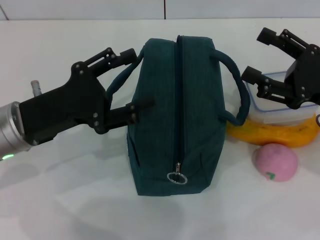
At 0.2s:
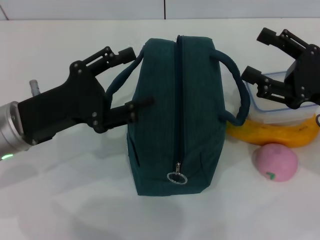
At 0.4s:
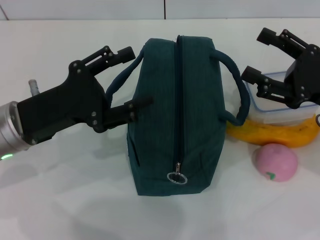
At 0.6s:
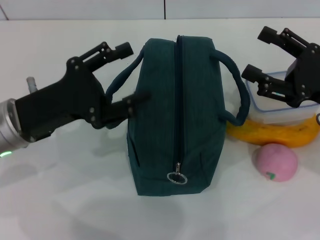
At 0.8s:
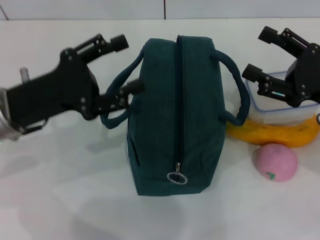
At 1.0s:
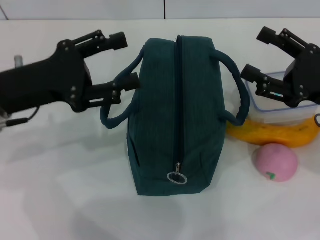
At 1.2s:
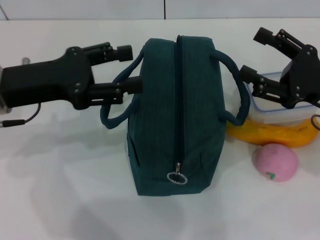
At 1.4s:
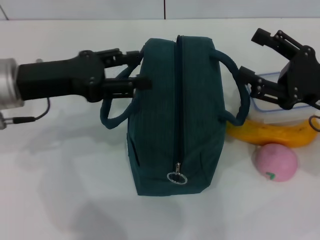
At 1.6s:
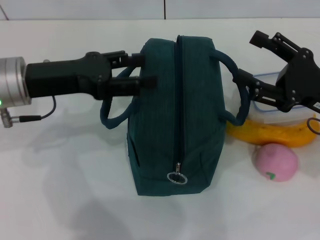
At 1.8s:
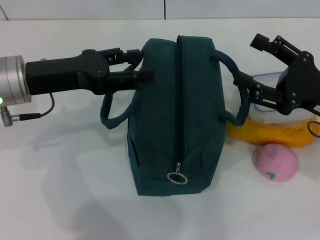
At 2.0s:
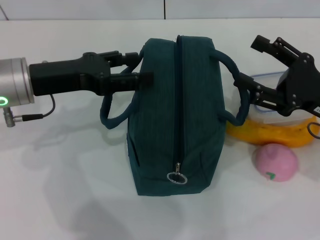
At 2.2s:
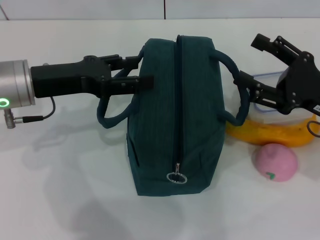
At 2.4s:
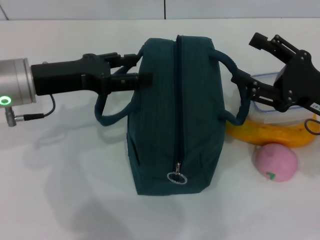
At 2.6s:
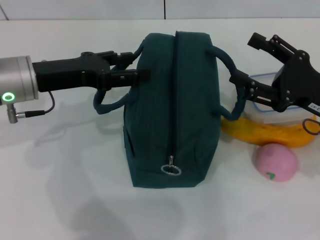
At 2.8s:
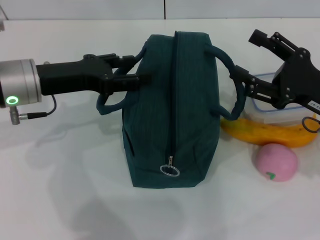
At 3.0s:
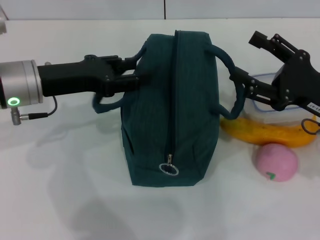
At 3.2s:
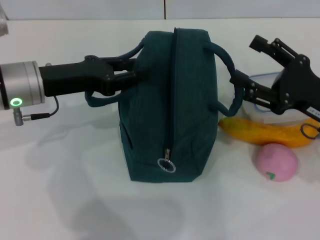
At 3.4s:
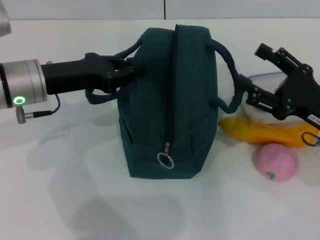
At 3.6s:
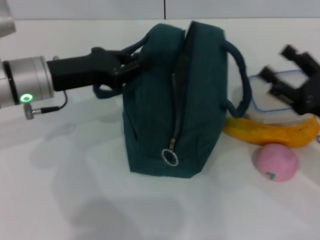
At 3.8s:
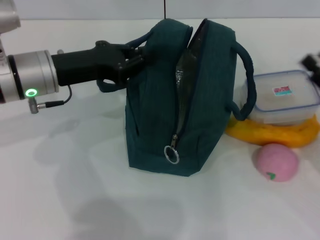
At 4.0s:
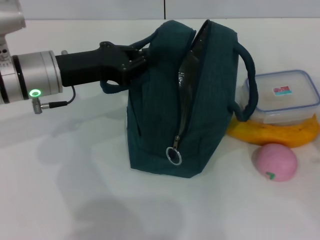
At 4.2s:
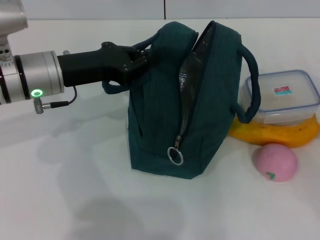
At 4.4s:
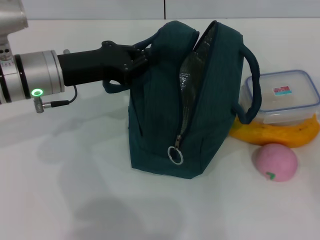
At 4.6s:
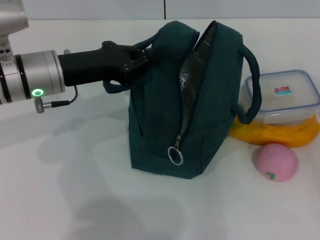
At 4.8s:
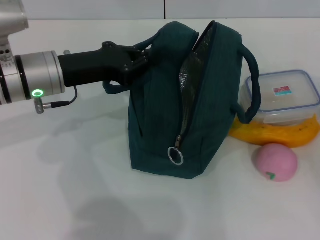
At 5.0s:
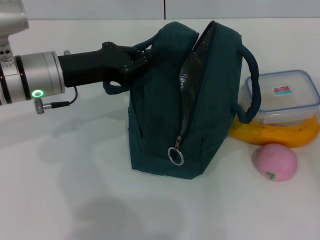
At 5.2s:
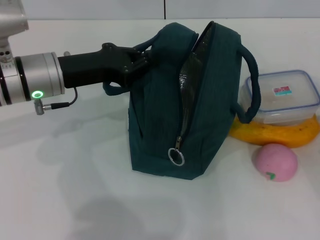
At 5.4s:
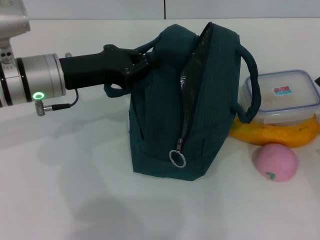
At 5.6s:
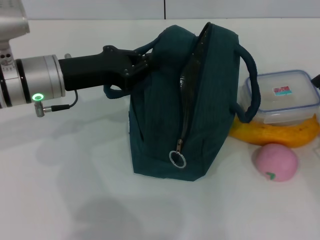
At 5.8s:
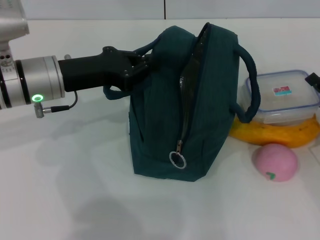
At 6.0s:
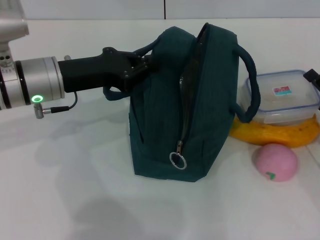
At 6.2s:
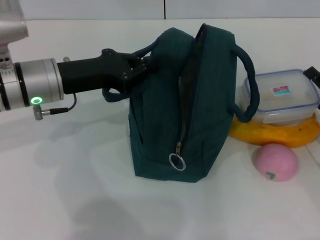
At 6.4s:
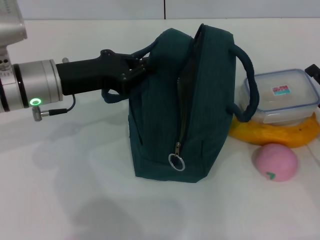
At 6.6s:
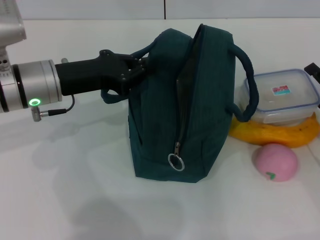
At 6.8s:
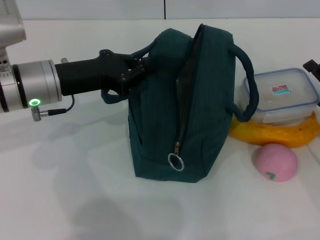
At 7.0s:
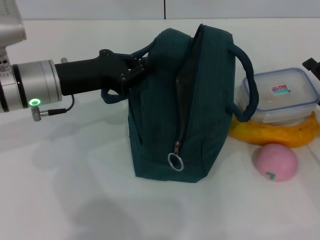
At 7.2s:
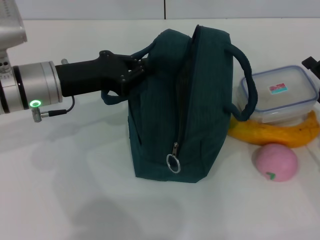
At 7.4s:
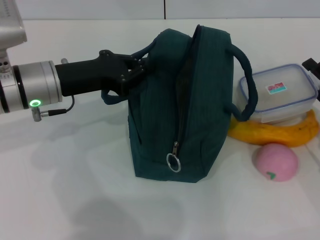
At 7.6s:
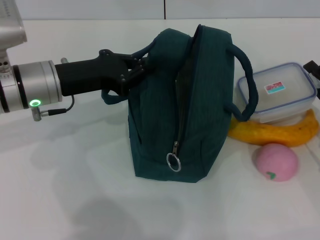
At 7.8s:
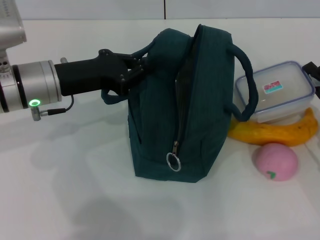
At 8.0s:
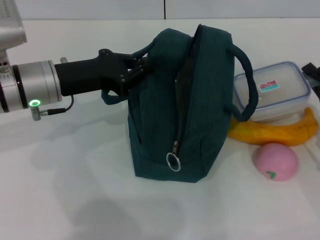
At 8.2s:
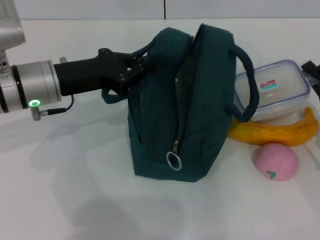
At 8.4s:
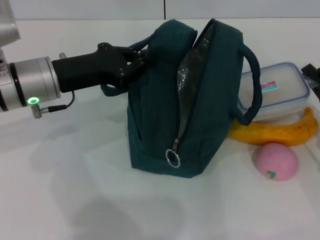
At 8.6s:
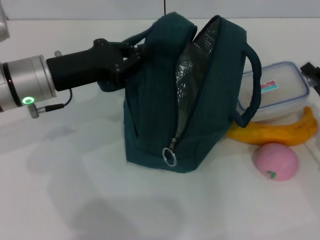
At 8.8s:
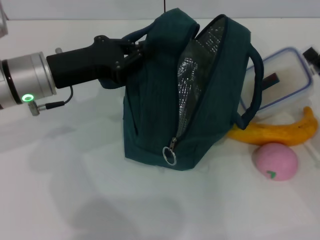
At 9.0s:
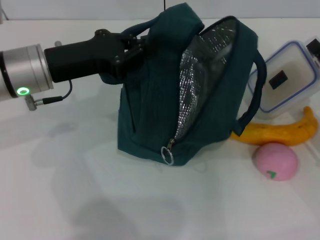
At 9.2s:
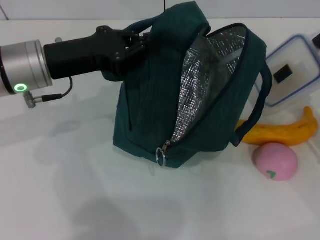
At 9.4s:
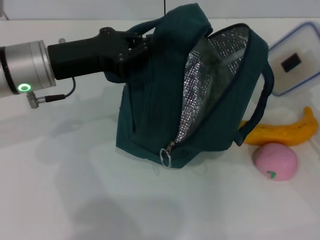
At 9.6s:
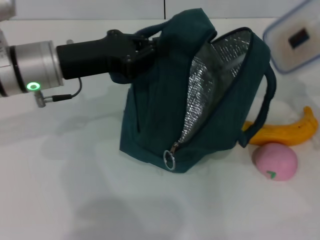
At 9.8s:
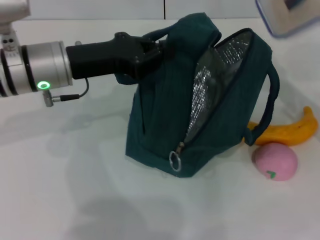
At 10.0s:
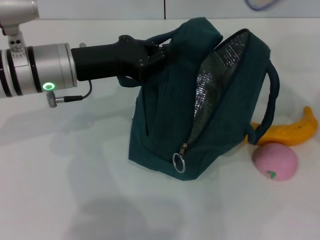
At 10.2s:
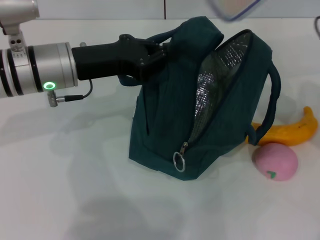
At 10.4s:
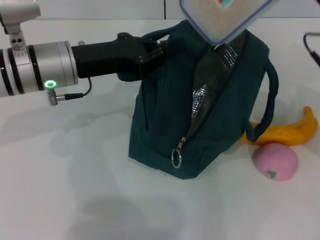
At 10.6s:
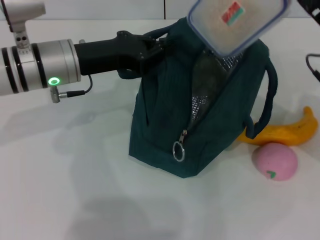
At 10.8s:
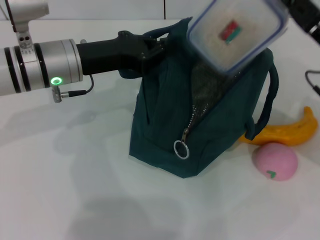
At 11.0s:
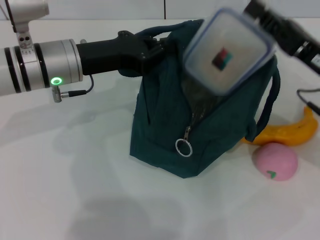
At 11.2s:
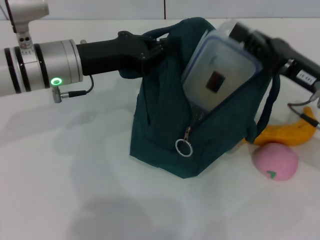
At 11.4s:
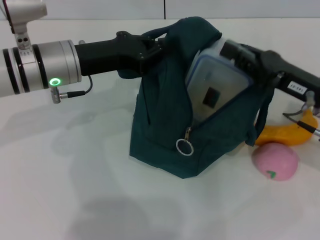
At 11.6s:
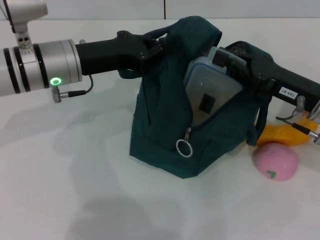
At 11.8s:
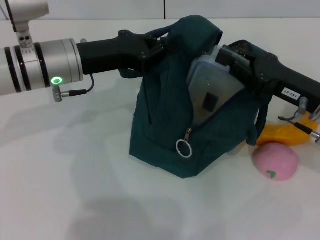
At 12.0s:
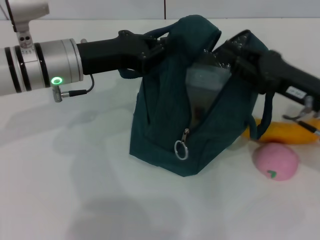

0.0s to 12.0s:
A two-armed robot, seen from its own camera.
Step, 0.0s to 4.6s: Hold the lunch bag with your left hand.
Step, 4.8s to 8.2s: Pick up the lunch box with your right hand.
Step, 8.4s to 11.8s: Place the lunch box into the lunch bag with your right hand.
0.0s to 1.6s: The left gripper goes approximately 5 cm upward.
1.6s to 3.0s: There are only small adjustments of the grippers.
3.0s to 4.4s: The left gripper closes its fingers, while the right gripper travels to the right, downward and backward by roughly 15 cm.
4.4s to 6.0s: The right gripper is displaced forward by roughly 5 cm.
6.0s to 7.6s: There are only small adjustments of the grippers.
7.6s to 9.0s: The right gripper closes its fingers.
9.0s to 10.4s: The right gripper goes roughly 10 cm upward and to the left.
10.4s to 12.0s: The right gripper moves downward, some 5 cm.

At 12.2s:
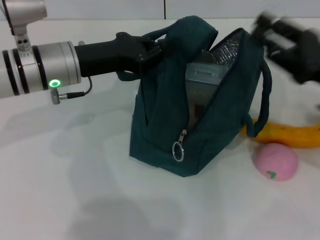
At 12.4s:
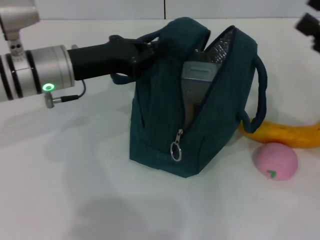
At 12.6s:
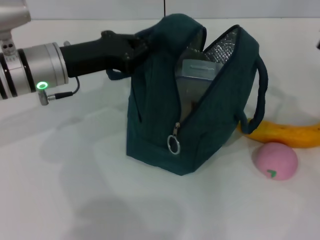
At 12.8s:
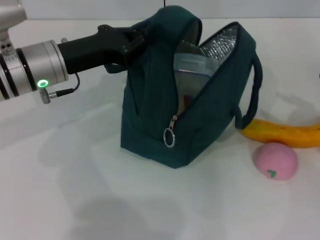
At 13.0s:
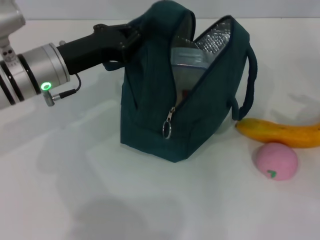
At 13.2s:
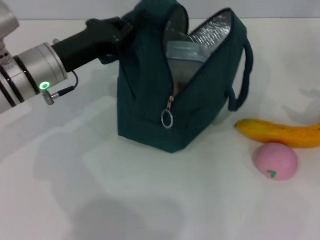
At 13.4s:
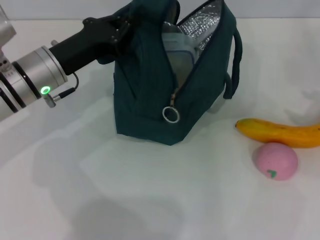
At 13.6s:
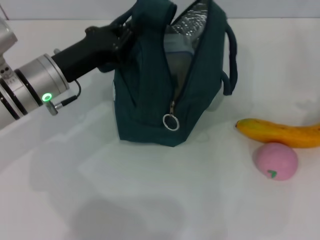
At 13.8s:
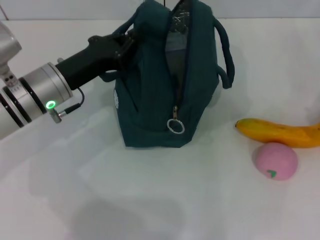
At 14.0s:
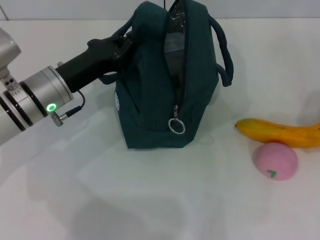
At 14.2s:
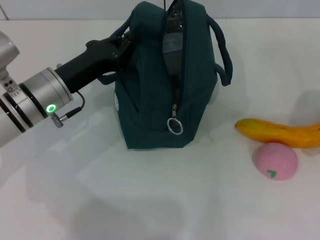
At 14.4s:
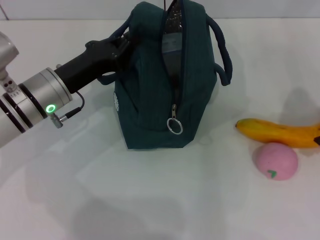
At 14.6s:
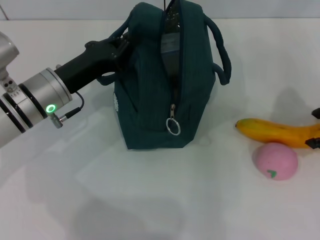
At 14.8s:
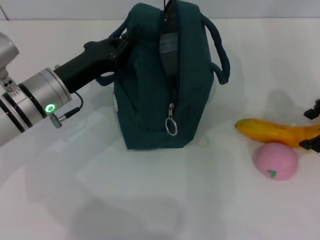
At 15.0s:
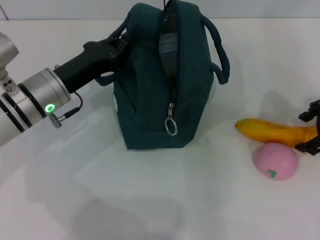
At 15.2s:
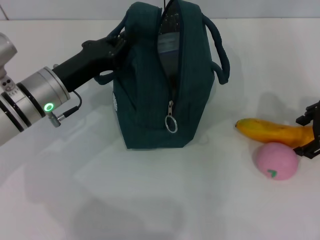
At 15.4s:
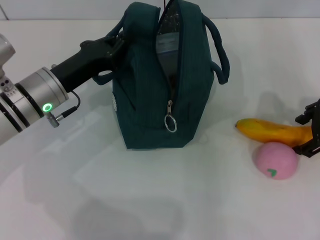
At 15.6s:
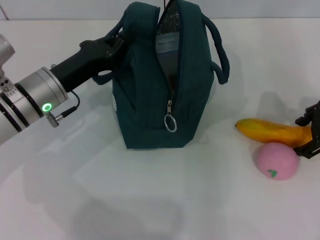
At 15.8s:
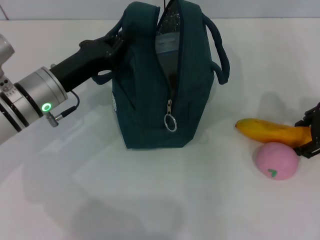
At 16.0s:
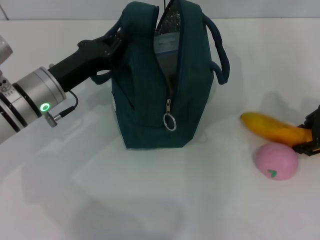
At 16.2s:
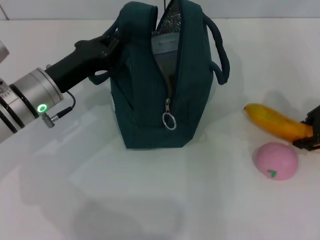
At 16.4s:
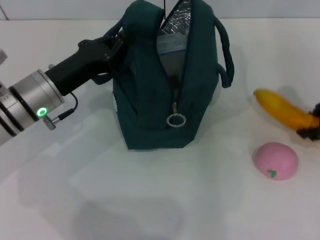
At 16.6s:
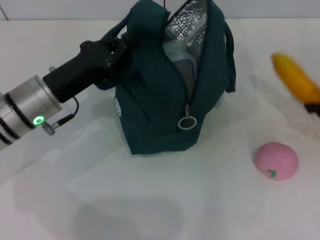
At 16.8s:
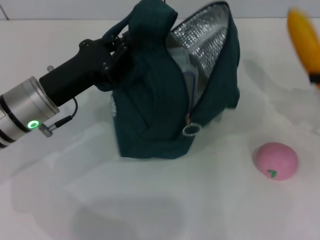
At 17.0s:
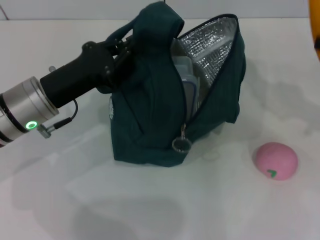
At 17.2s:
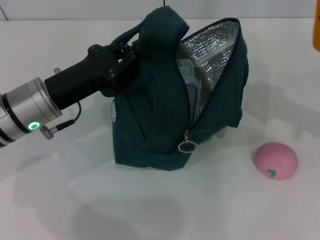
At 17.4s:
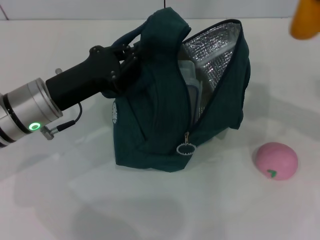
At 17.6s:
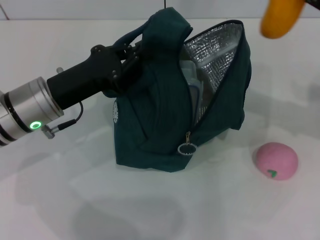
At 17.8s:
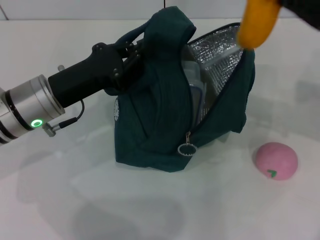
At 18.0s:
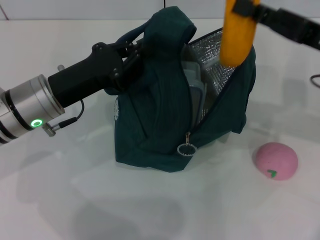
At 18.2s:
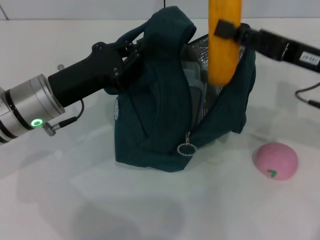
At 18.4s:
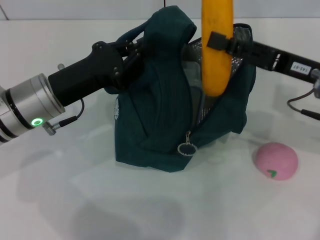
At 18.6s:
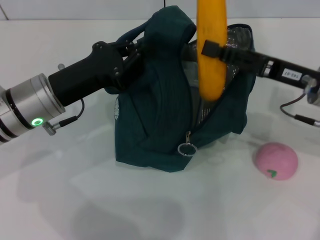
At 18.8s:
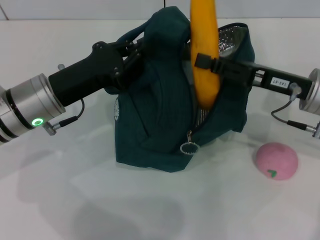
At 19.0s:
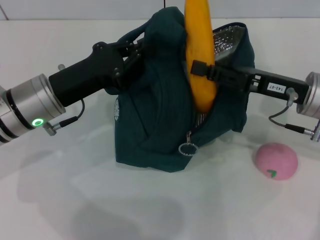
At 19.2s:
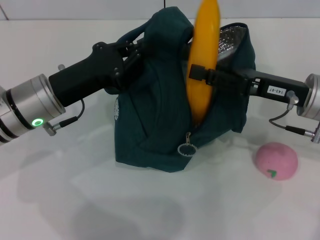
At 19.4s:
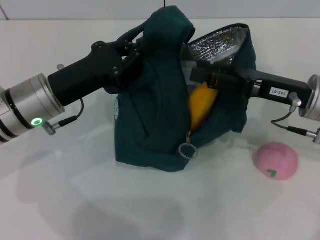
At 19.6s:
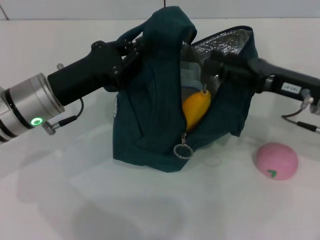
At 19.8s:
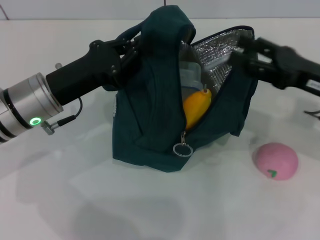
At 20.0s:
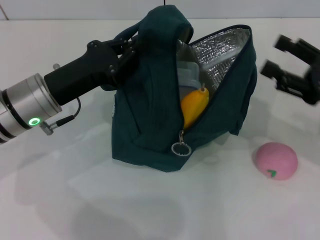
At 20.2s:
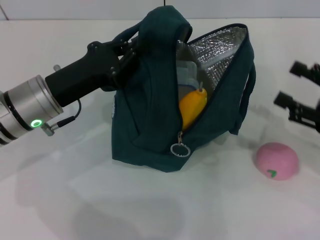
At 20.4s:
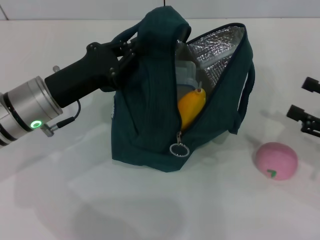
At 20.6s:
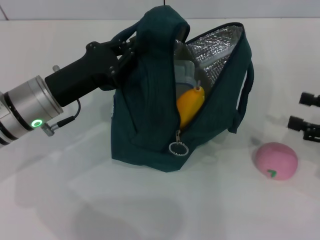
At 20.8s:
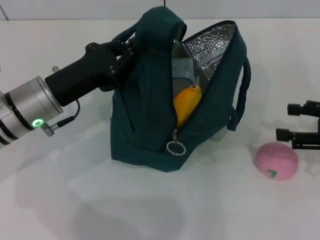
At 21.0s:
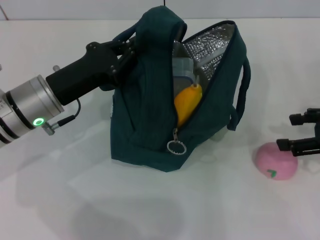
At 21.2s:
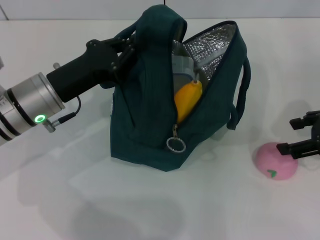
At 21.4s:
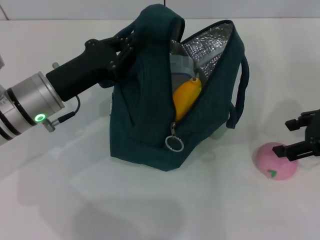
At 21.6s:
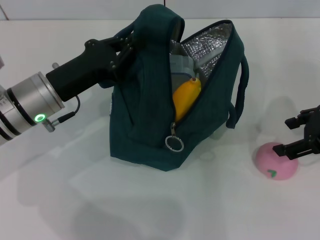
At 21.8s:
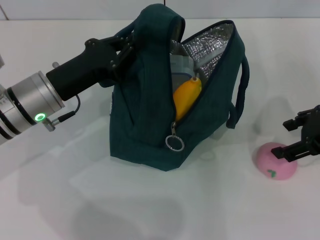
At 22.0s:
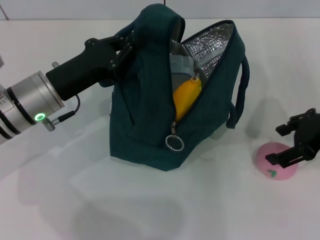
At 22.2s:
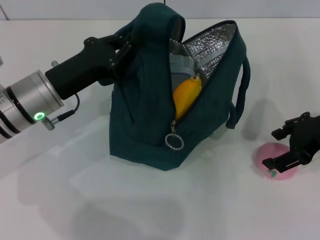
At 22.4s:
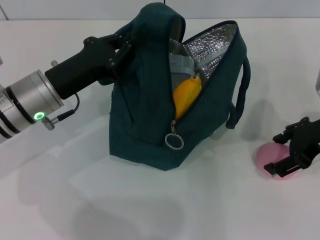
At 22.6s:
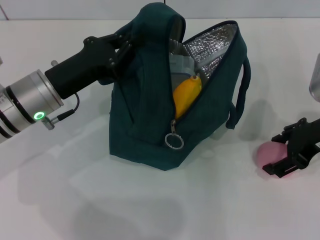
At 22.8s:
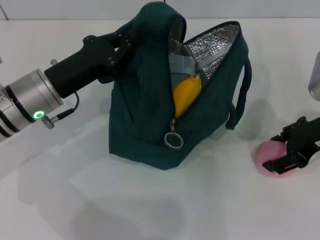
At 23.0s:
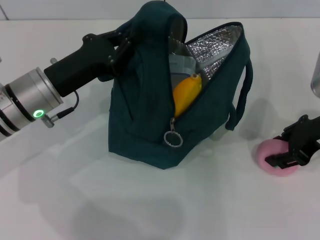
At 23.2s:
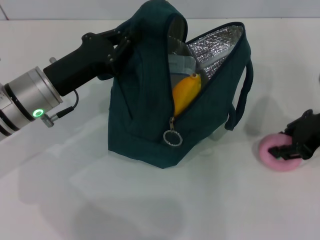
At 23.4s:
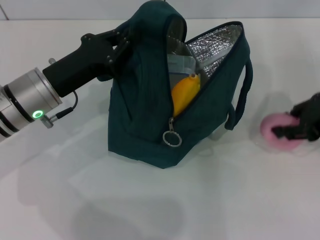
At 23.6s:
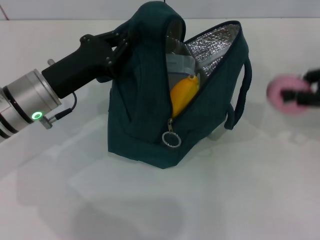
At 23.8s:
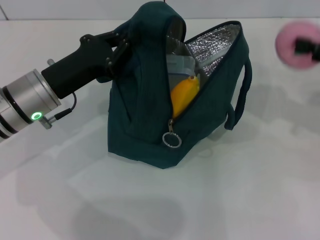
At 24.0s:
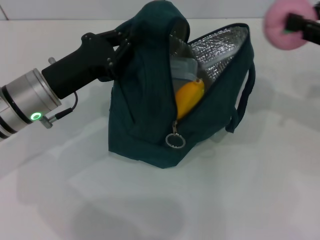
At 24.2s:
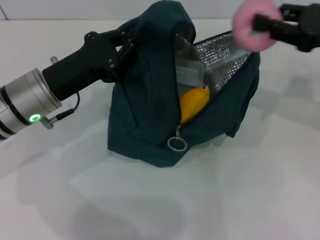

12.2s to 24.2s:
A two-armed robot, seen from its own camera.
Step, 12.2s to 15.8s: Take the banana with your right hand.
Step, 16.0s to 19.4s: Put the banana into the lunch bag with your right hand.
Step, 19.6s to 23.0s: Grab the peach with your right hand.
12.2s to 13.8s: The left gripper shifts by roughly 5 cm. Meanwhile the right gripper shifts about 10 cm to the right and upward, and opens.
13.8s to 15.2s: The right gripper heads to the left, covering roughly 10 cm.
15.2s to 16.6s: The right gripper is displaced to the right by approximately 5 cm, and closes its fingers.
16.6s to 18.2s: The right gripper travels to the left by approximately 10 cm.
18.2s to 19.8s: The right gripper opens up.
21.2s to 22.6s: The right gripper heads to the left, covering some 5 cm.
22.6s to 24.2s: The right gripper closes.
